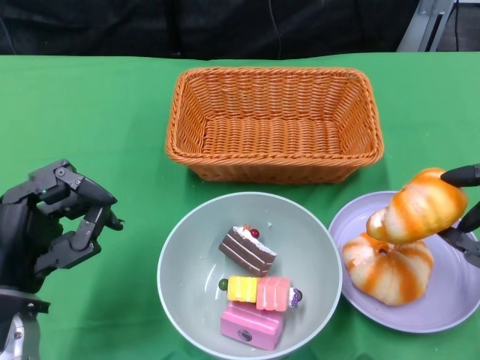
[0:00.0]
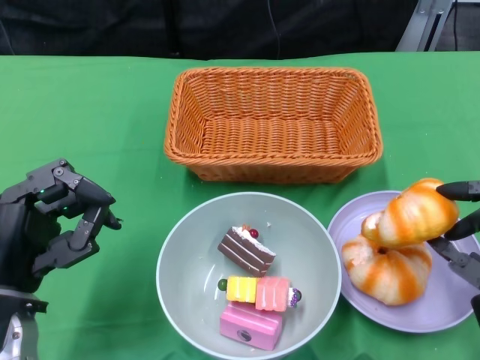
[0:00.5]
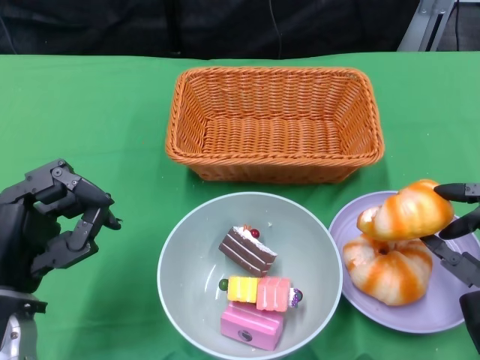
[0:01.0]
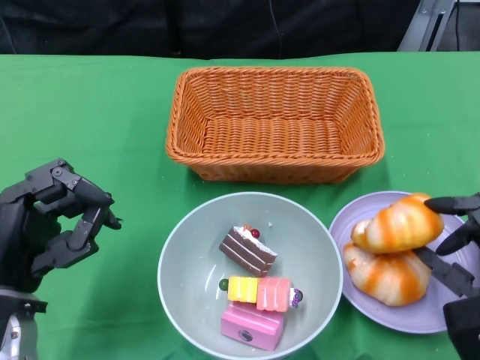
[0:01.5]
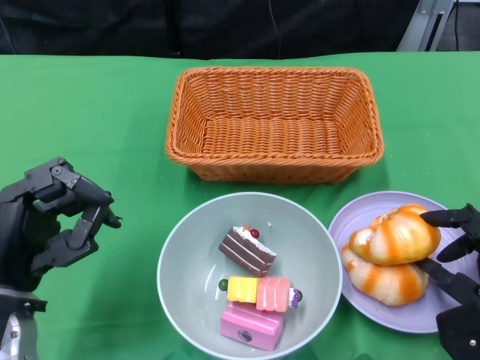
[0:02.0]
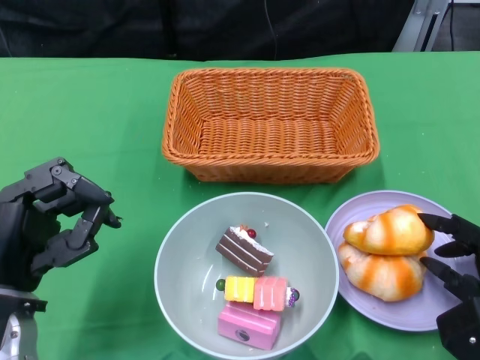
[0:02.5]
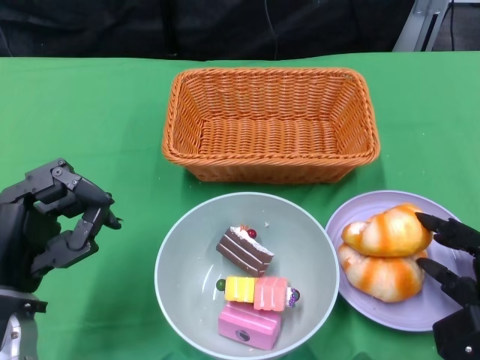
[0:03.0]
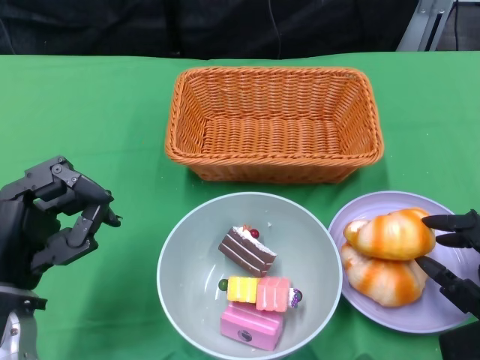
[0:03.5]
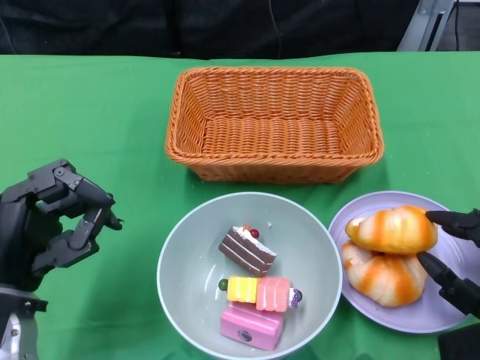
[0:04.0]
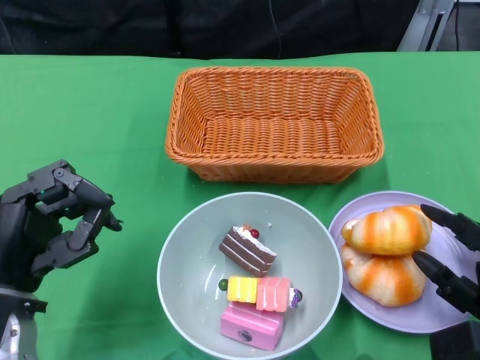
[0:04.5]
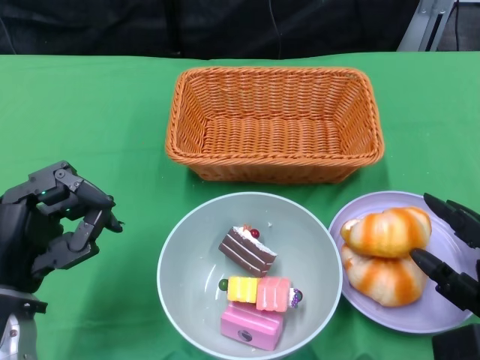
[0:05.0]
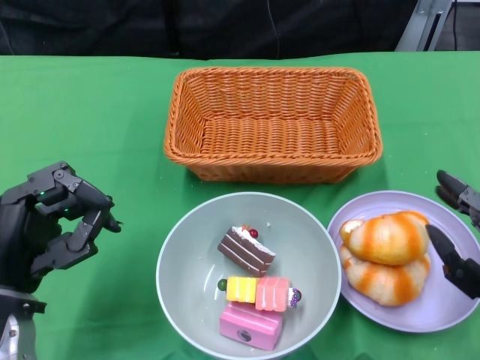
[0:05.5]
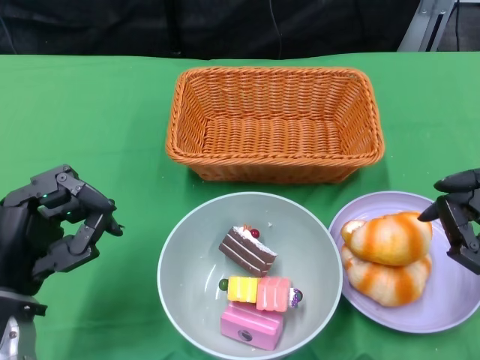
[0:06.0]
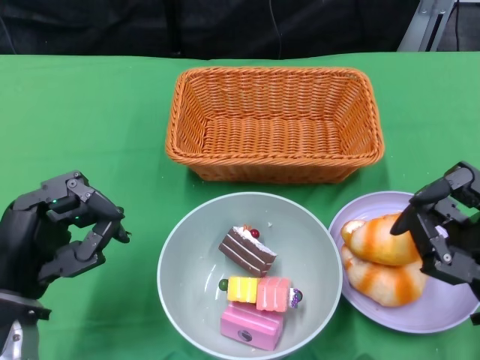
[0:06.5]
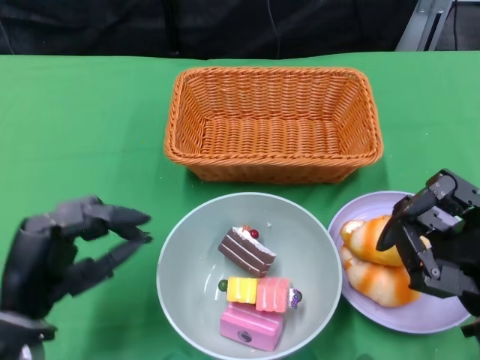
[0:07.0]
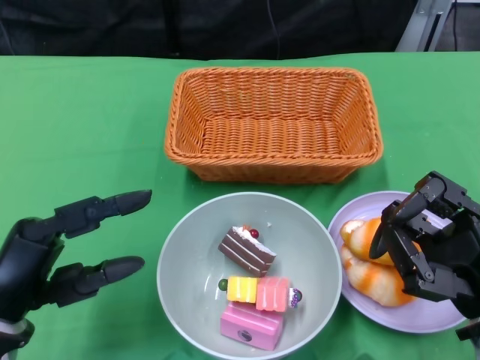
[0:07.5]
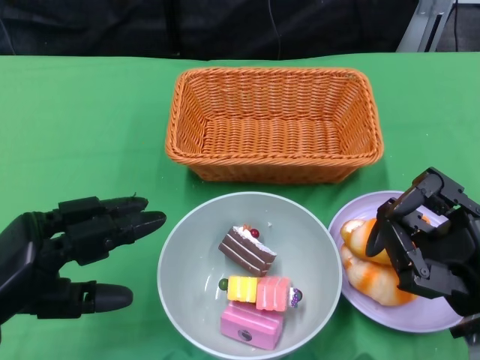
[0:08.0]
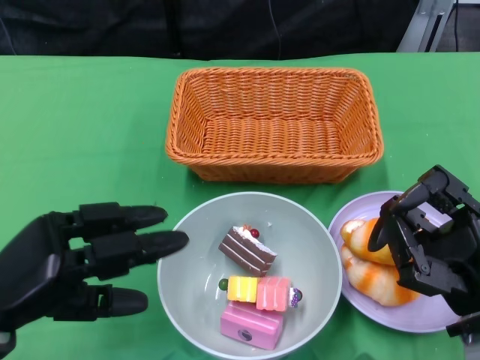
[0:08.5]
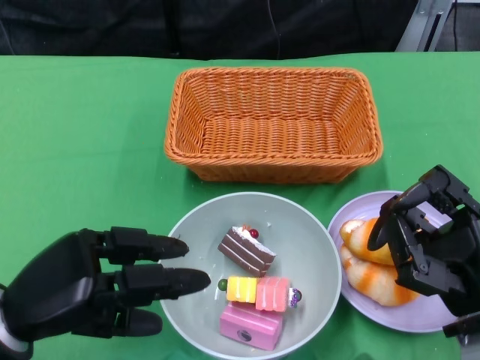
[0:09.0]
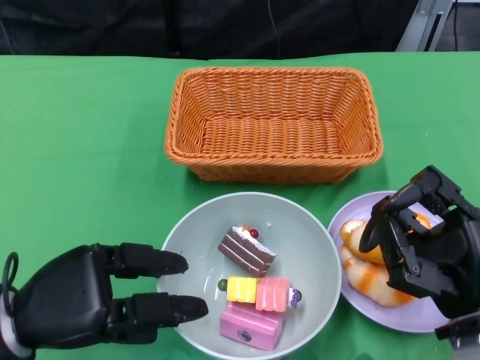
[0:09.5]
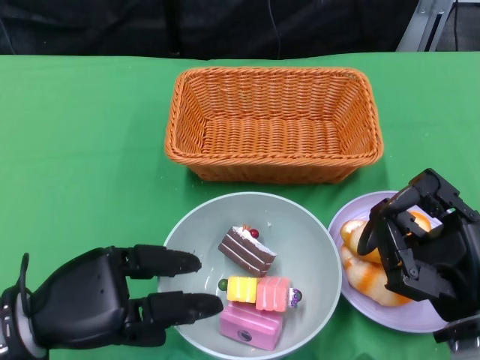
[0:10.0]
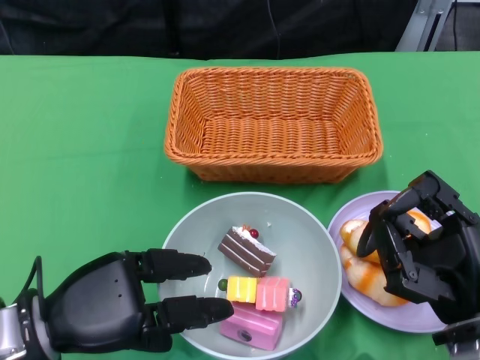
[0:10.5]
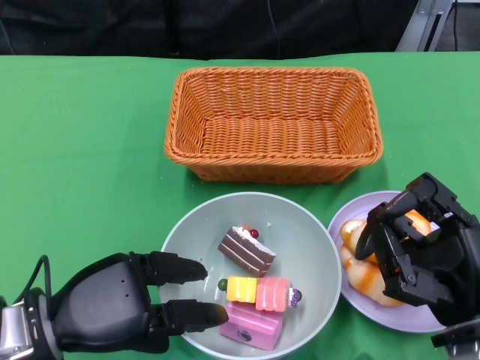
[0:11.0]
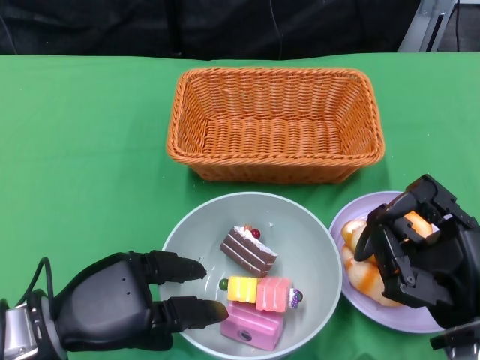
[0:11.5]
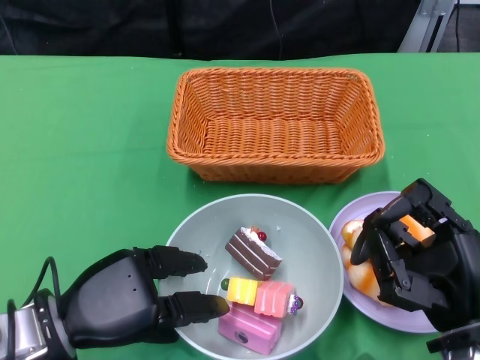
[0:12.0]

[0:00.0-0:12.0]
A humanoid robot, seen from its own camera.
Step, 0.0 to 6.5 s: Pick up the bread with the right gripper and place it on the plate.
0.0 to 2.0 s: The right hand travels downward by roughly 10 cm.
2.0 to 4.0 s: The hands move only a little.
4.0 to 6.0 s: The right hand moves upward, about 5 cm.
10.0 to 12.0 s: The hands stay close to where they were, moving slightly.

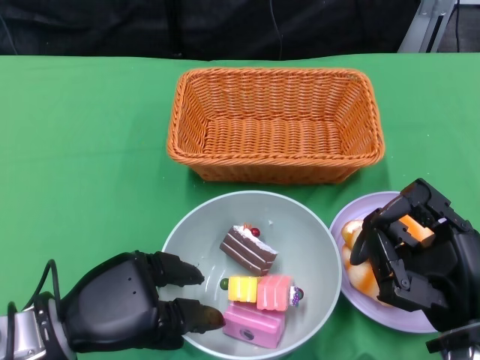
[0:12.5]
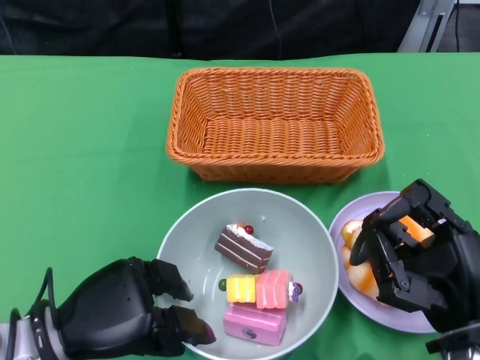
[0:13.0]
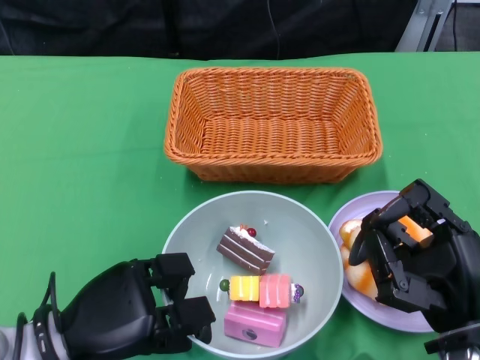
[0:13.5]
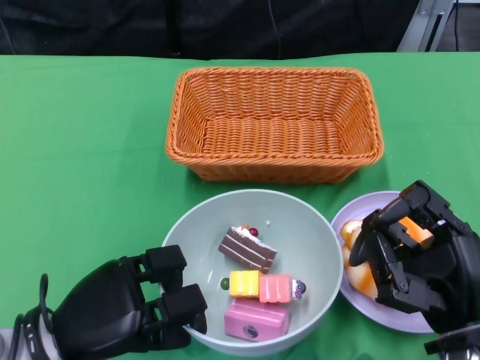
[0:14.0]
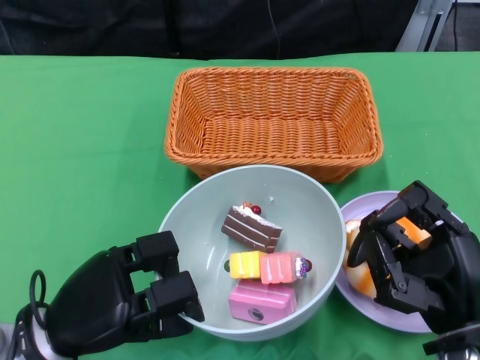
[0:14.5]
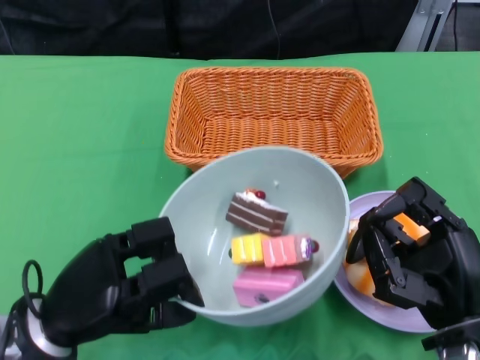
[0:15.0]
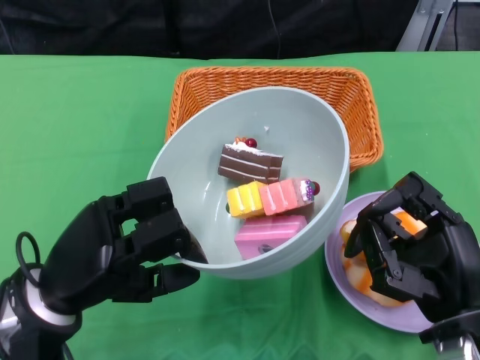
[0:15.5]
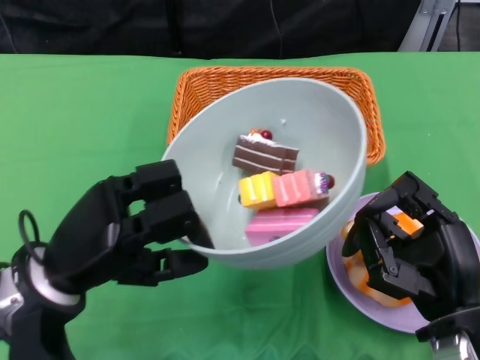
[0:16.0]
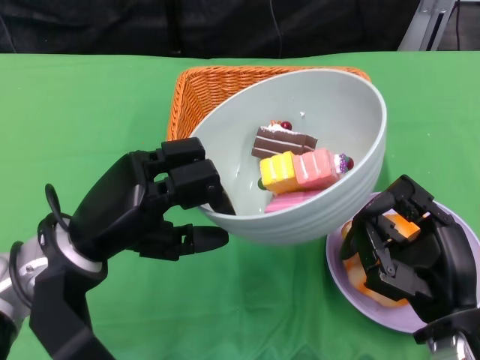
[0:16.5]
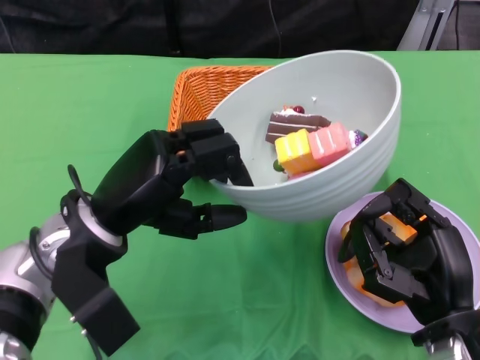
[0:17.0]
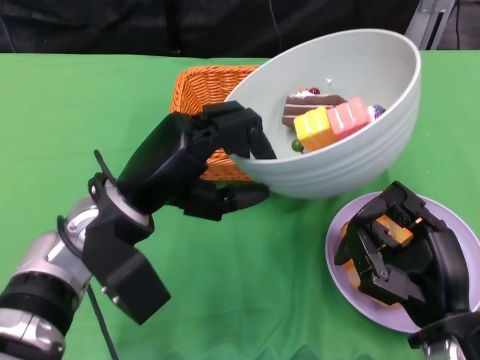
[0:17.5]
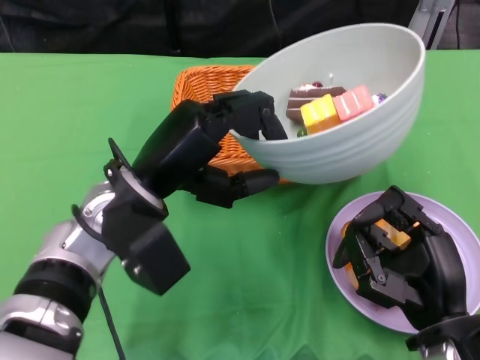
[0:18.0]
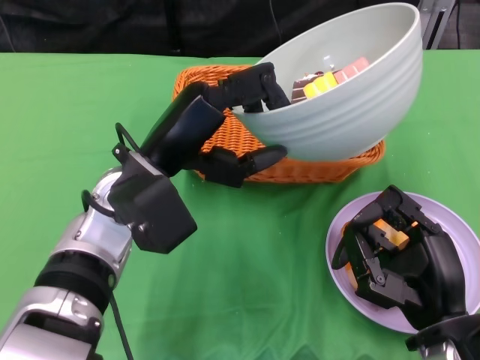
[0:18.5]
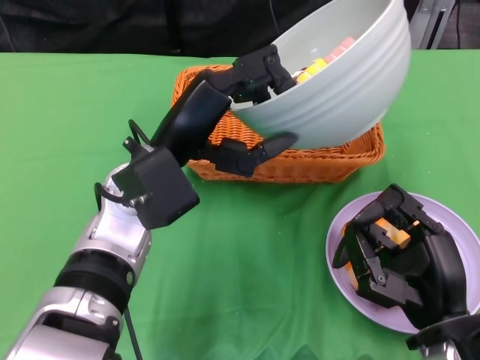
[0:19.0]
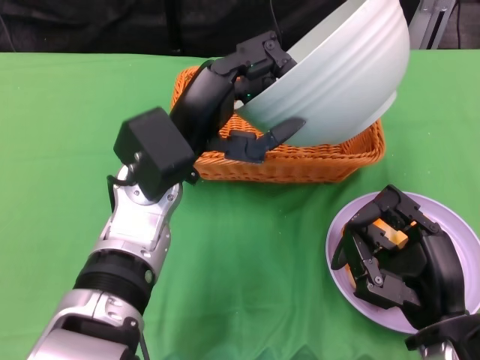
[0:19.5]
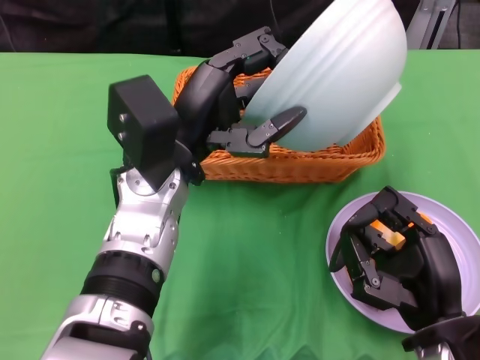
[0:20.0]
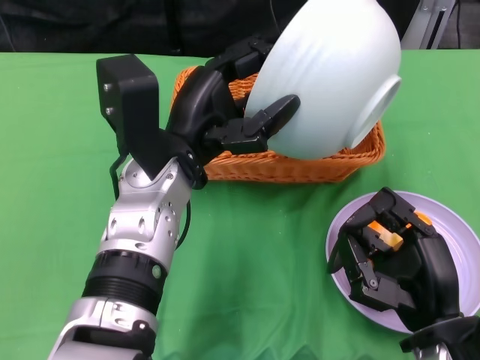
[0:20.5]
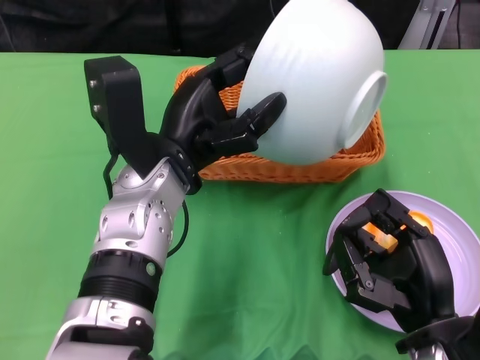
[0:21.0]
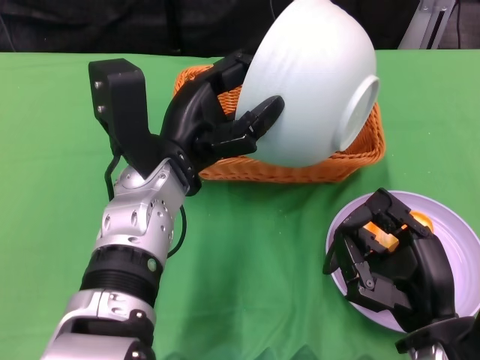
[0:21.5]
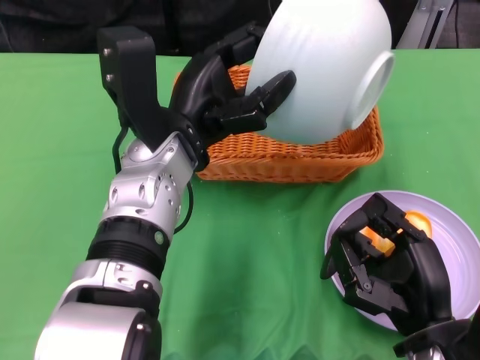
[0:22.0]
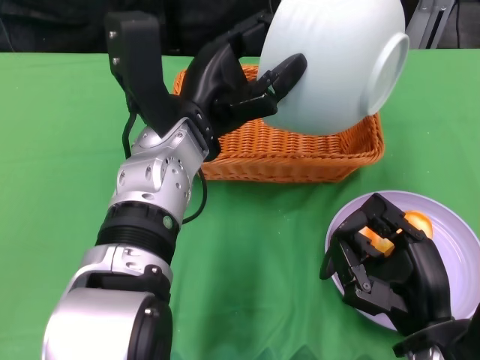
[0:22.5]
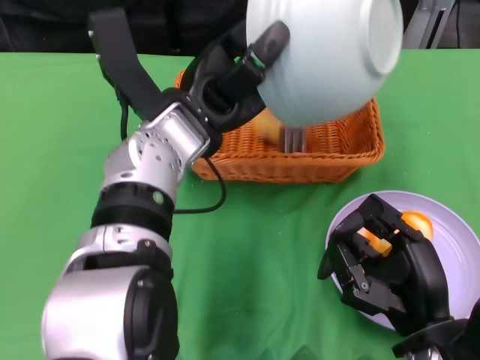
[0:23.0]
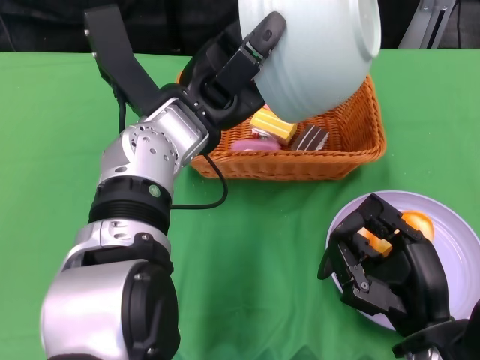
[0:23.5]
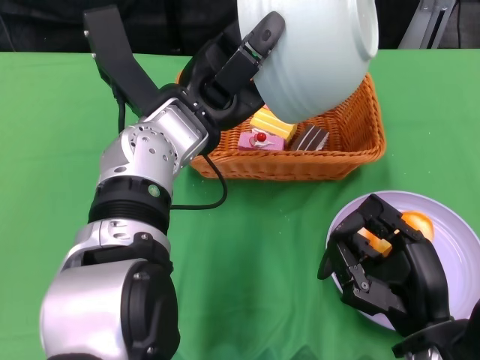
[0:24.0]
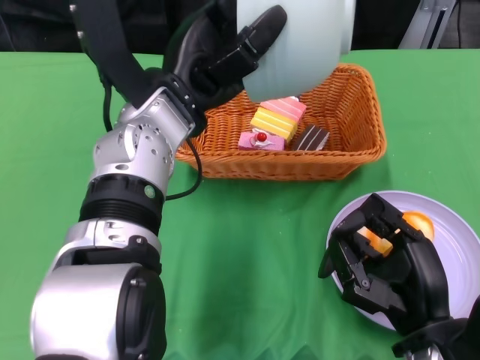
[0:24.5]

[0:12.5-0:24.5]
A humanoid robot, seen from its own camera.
Step, 14.5 to 24.0 s: Pour the cake into the basket with the left gripper.
14.5 to 16.5 s: The left hand goes approximately 5 cm upward.
16.5 to 18.5 s: The left hand shifts about 5 cm to the right.

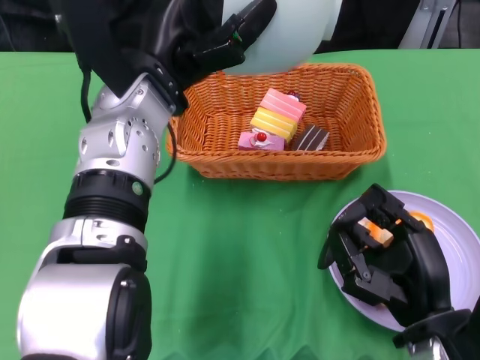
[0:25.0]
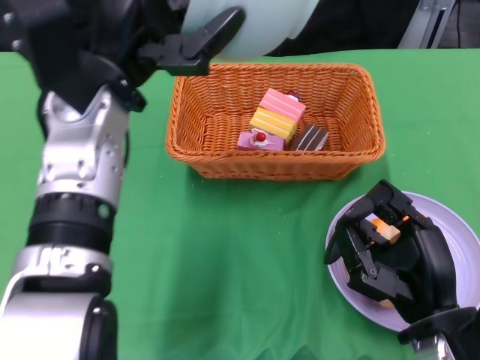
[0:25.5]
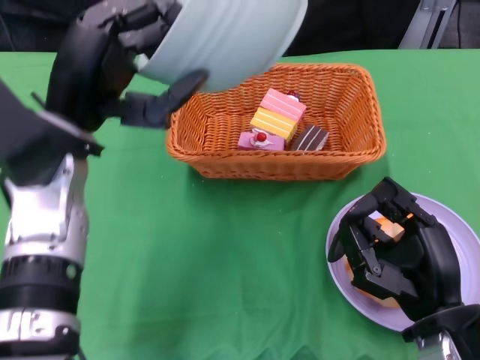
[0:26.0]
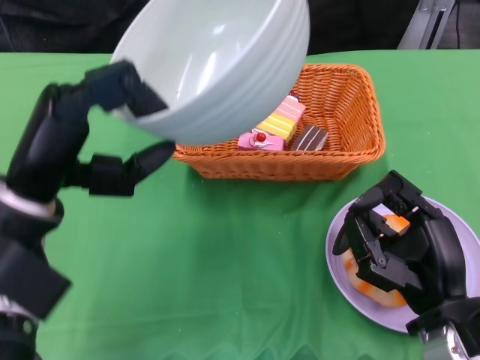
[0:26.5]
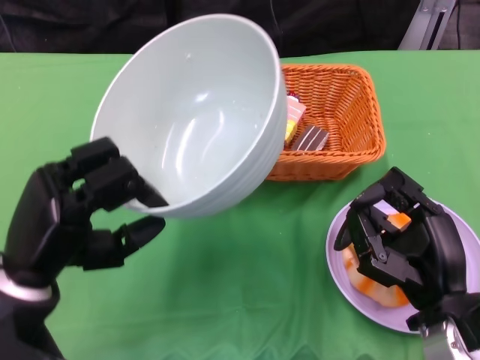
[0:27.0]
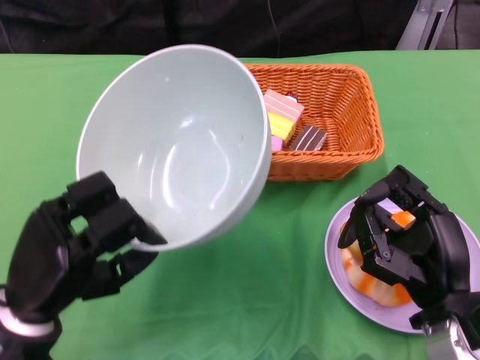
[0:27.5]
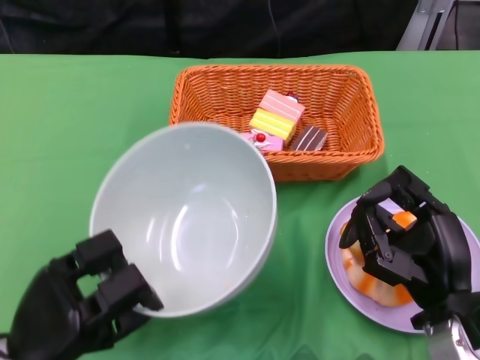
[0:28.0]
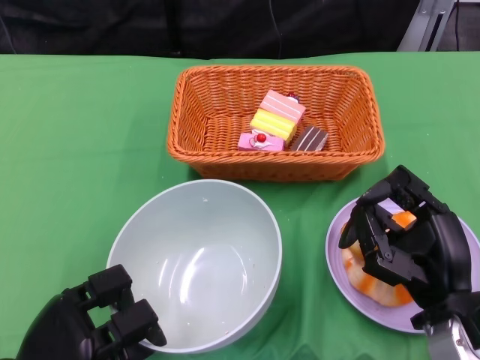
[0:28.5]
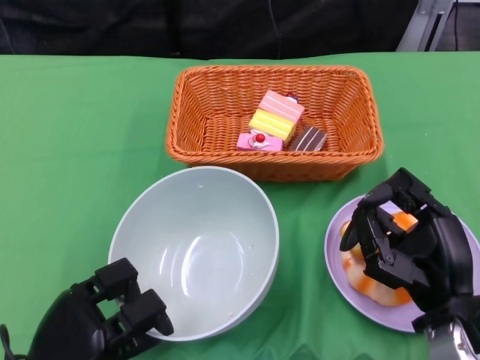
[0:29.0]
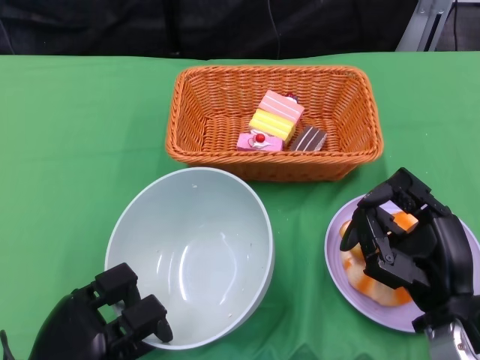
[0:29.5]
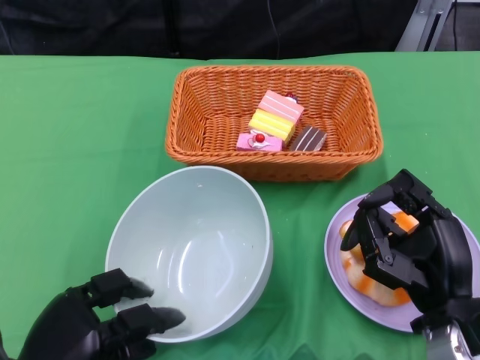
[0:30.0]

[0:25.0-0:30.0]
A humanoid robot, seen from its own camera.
25.0 to 27.5 s: The left hand is displaced downward, backward and to the left by roughly 25 cm.
27.5 to 30.0 s: The left hand goes some 10 cm downward.
